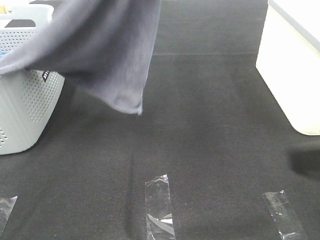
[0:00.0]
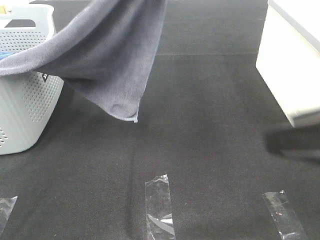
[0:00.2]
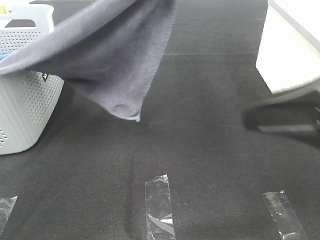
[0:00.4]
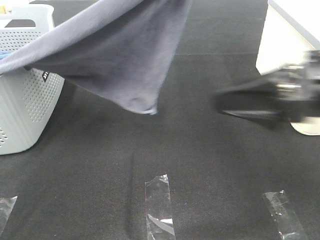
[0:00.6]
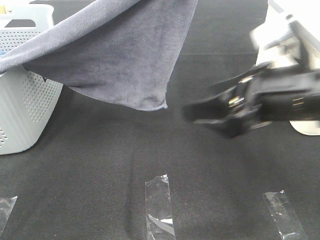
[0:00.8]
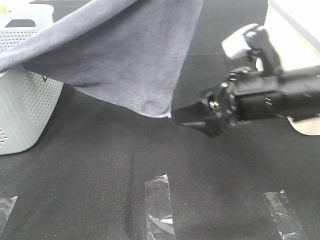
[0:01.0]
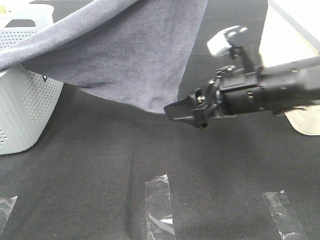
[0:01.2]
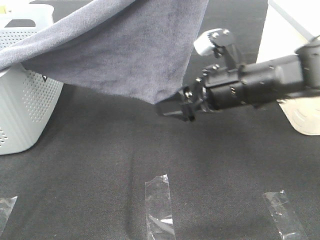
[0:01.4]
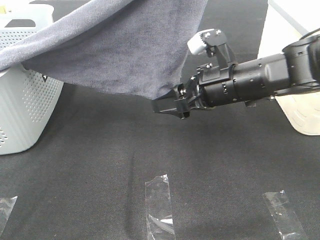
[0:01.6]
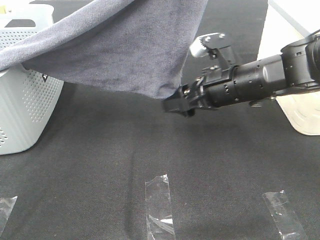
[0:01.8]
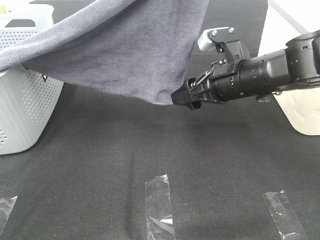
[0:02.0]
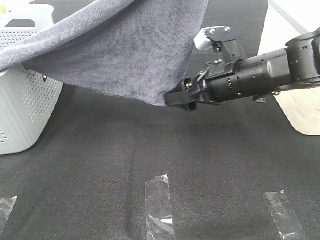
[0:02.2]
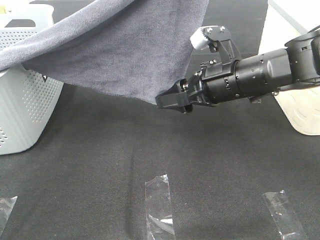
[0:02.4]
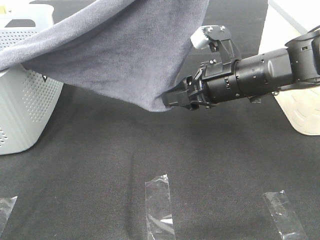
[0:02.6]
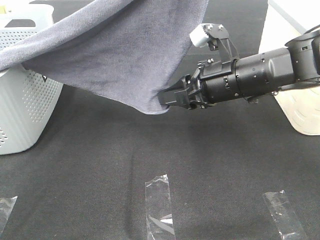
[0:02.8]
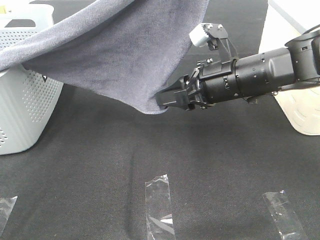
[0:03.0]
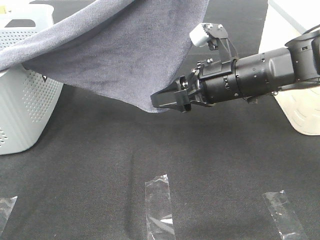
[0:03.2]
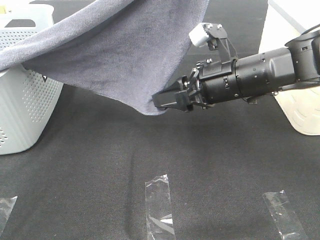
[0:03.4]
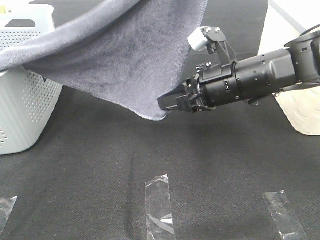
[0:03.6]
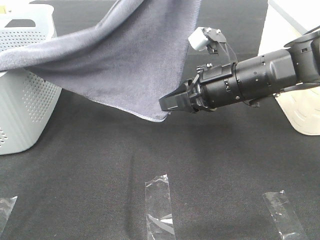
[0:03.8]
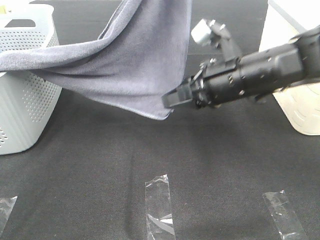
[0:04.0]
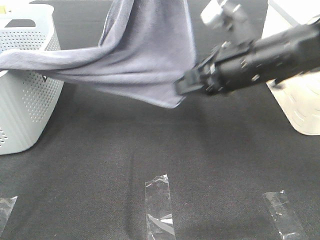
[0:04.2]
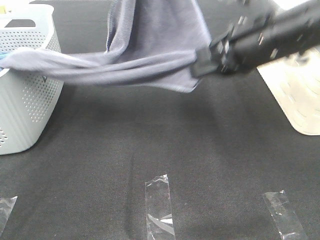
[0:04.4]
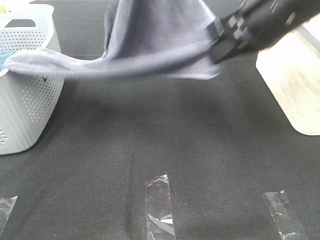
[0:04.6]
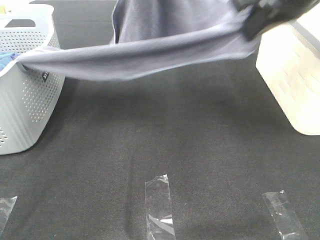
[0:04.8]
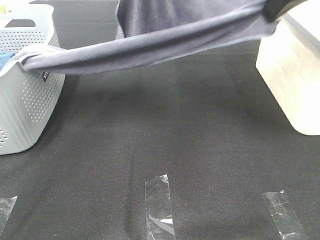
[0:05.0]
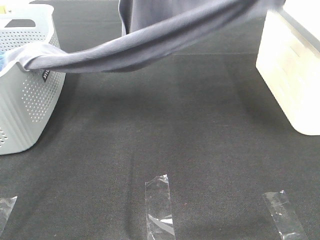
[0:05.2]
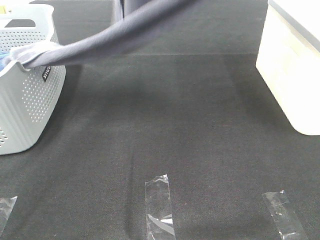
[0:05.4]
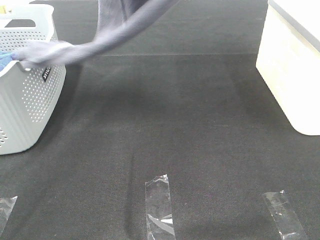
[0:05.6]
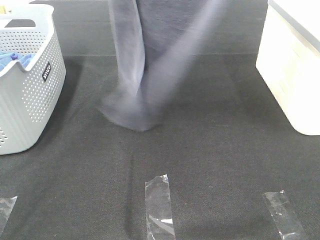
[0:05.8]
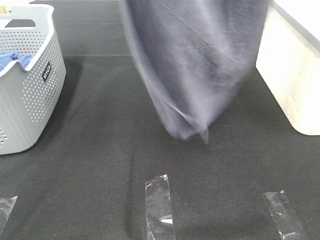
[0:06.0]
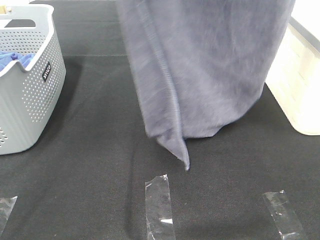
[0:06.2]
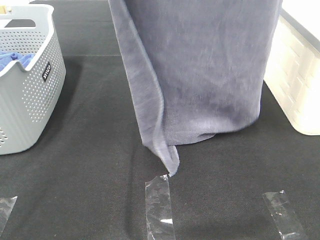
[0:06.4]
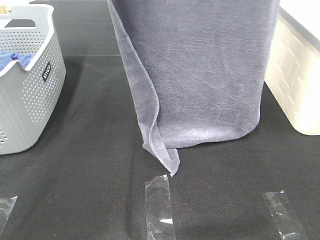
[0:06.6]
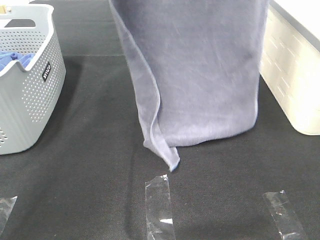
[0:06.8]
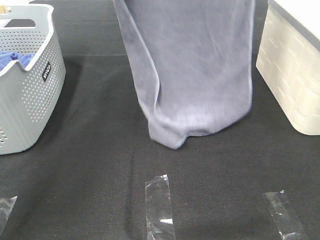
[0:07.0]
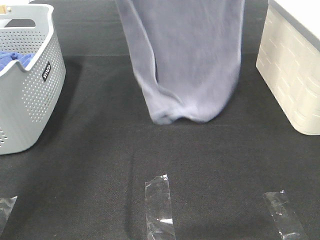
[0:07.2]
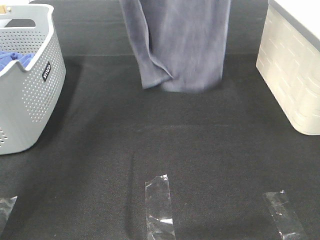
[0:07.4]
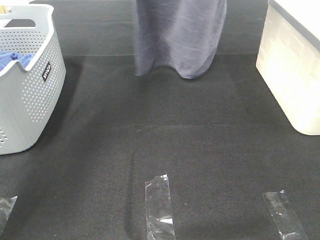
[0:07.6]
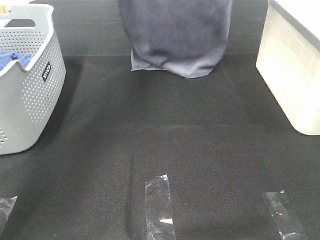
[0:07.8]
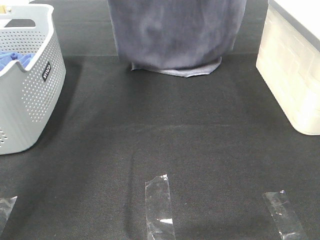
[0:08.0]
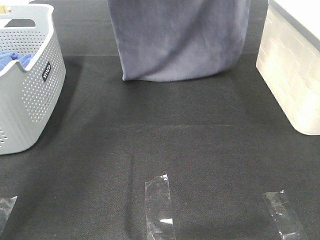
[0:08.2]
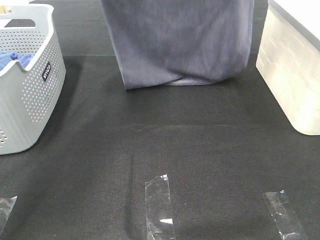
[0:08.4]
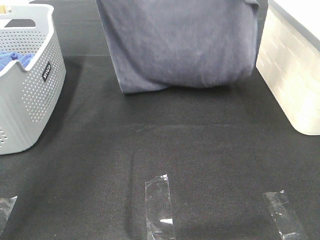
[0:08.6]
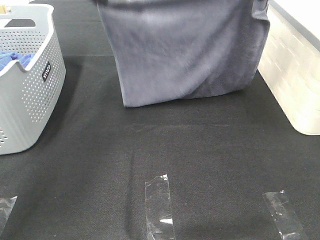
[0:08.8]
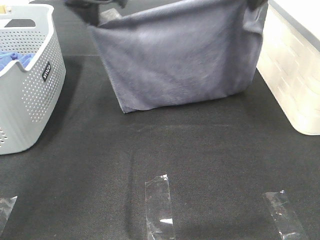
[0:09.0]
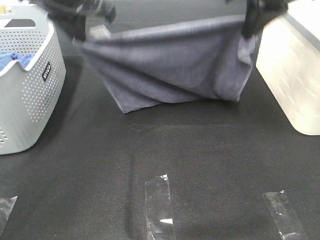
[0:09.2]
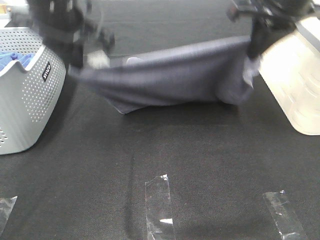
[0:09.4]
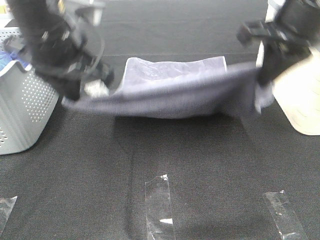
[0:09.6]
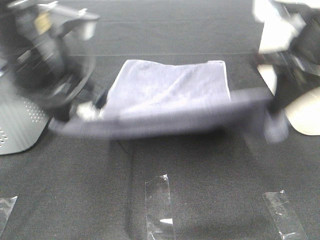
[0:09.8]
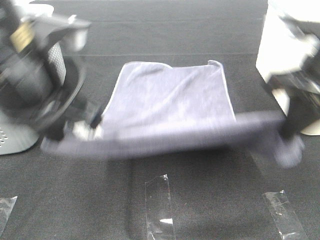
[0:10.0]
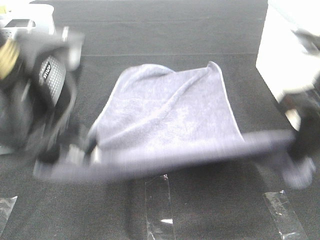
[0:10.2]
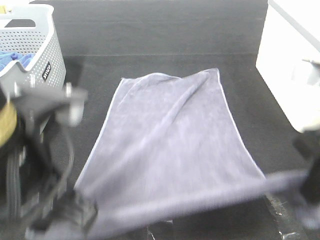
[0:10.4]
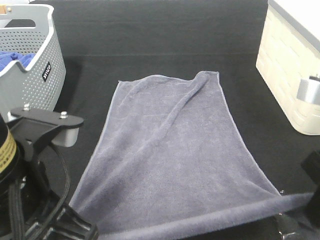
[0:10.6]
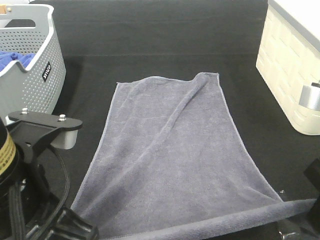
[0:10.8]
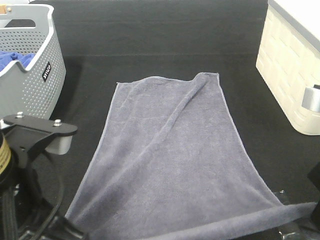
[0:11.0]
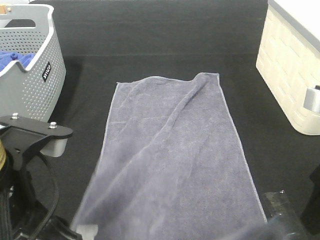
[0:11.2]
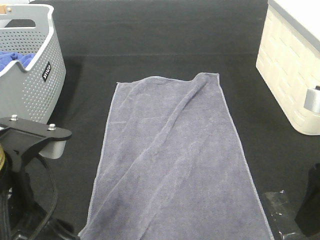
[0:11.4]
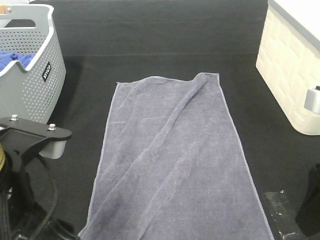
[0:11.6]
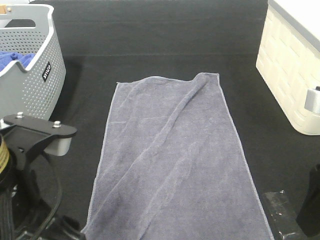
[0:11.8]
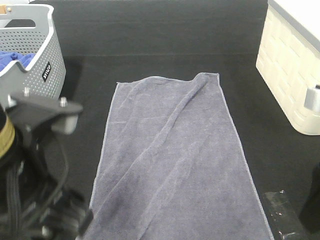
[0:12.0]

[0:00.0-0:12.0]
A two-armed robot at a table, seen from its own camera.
Task of the whole recording: Remove the towel and place it.
Step, 0.0 to 2.6 s: Right hand: grab a corner of the grey towel and straighten it.
Step, 2.8 to 7.0 s: Left hand: spread the grey towel flat on the table.
Step, 2.8 to 7.0 s: Right hand: spread the grey towel flat on the table.
0.0 to 1.6 s: The right gripper travels forward, downward and to the left by about 25 cm; the left gripper moves some 5 cm.
1.6 to 3.0 s: There are only small adjustments of the grippers.
3.0 to 4.4 s: The right gripper heads upward, covering roughly 10 cm, and closes its fingers.
4.4 to 6.0 s: The left gripper moves upward, some 10 cm; the right gripper travels upward by approximately 25 cm.
6.0 to 7.6 s: The left gripper goes roughly 20 cm forward and downward. Meanwhile the right gripper travels forward by approximately 15 cm.
7.6 to 9.0 s: The grippers both shift downward by some 15 cm.
9.0 to 10.4 s: The left gripper is displaced backward by some 30 cm. The right gripper heads backward and downward, covering approximately 25 cm.
10.4 to 12.0 s: The left gripper opens. The right gripper opens up.

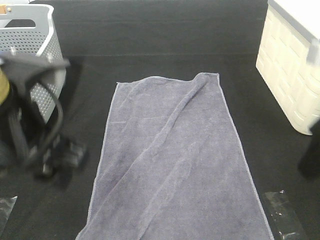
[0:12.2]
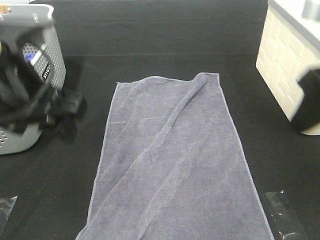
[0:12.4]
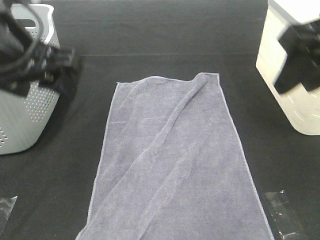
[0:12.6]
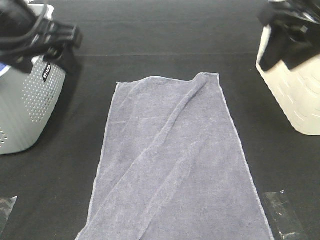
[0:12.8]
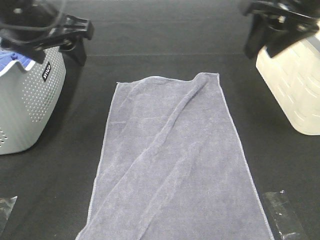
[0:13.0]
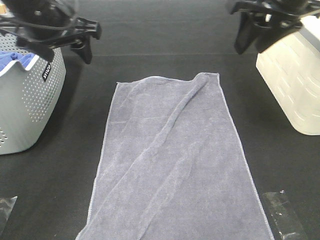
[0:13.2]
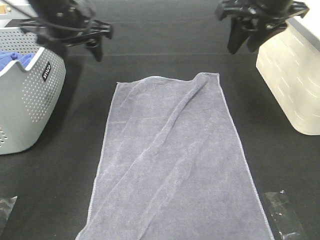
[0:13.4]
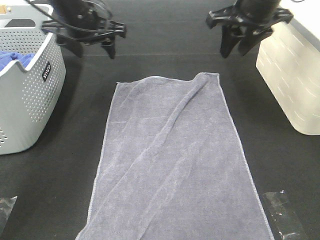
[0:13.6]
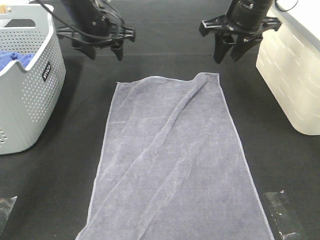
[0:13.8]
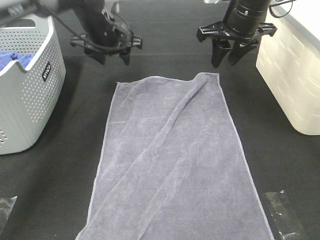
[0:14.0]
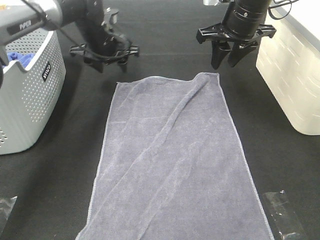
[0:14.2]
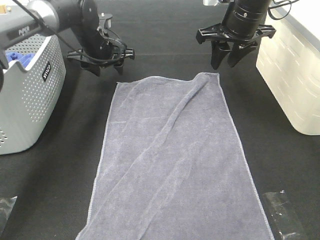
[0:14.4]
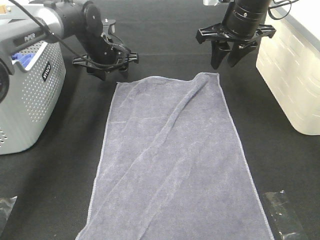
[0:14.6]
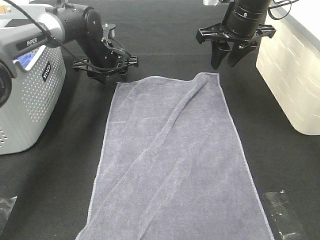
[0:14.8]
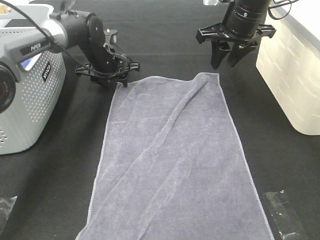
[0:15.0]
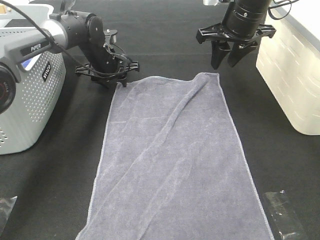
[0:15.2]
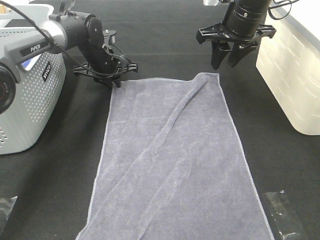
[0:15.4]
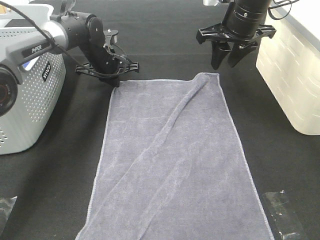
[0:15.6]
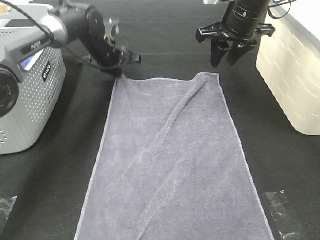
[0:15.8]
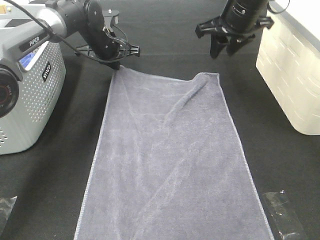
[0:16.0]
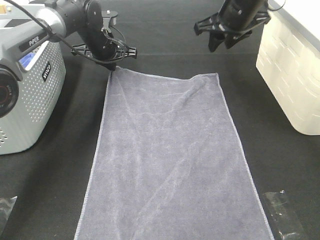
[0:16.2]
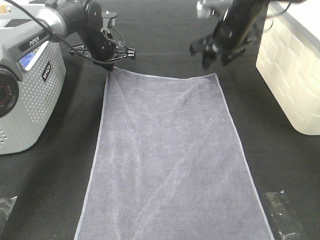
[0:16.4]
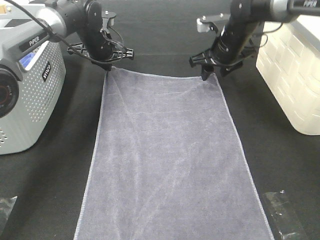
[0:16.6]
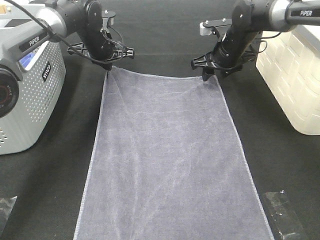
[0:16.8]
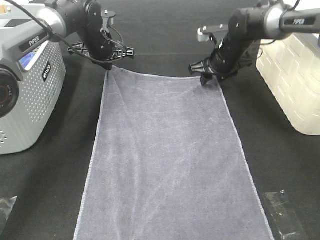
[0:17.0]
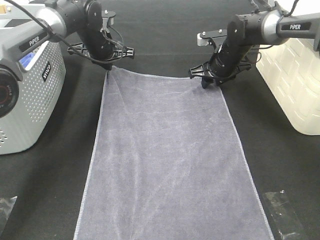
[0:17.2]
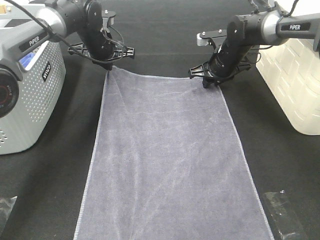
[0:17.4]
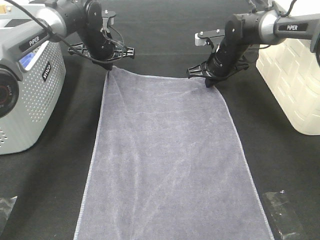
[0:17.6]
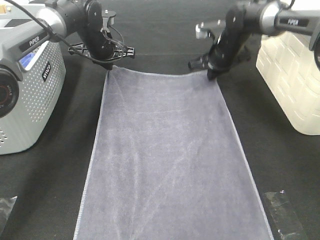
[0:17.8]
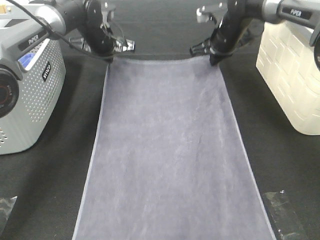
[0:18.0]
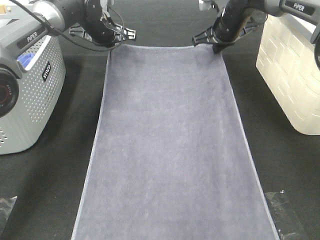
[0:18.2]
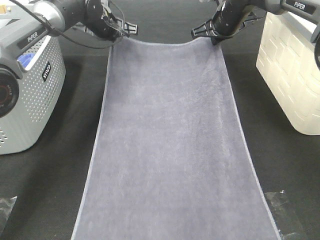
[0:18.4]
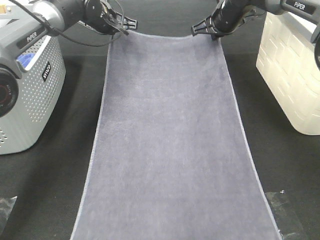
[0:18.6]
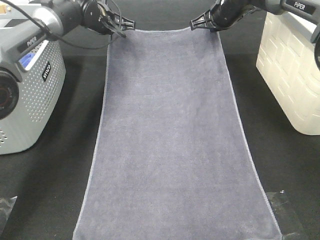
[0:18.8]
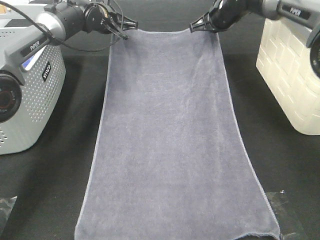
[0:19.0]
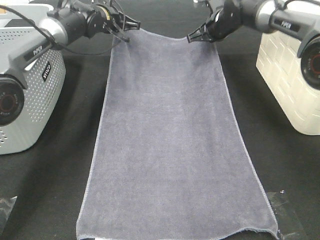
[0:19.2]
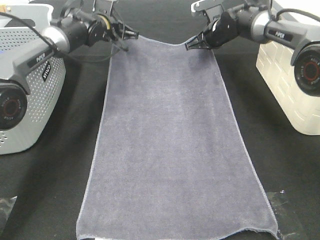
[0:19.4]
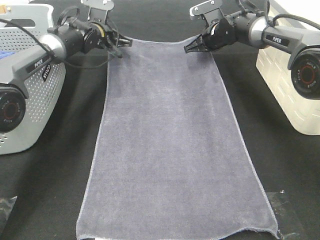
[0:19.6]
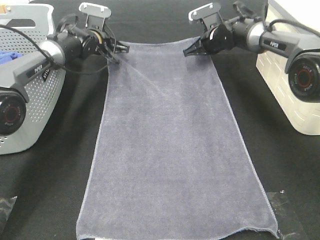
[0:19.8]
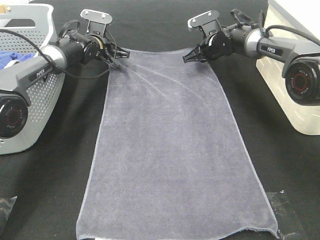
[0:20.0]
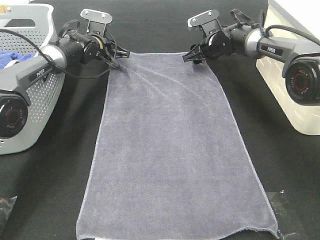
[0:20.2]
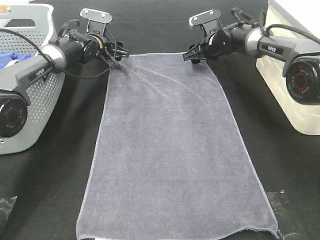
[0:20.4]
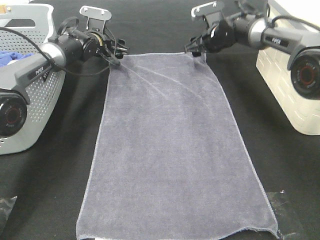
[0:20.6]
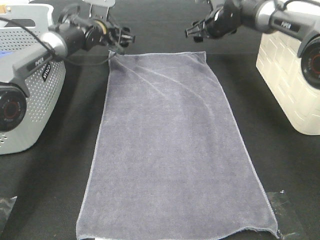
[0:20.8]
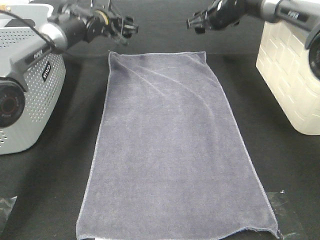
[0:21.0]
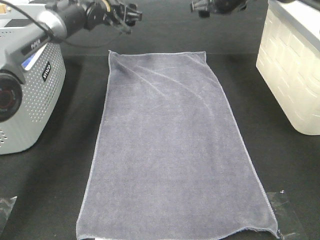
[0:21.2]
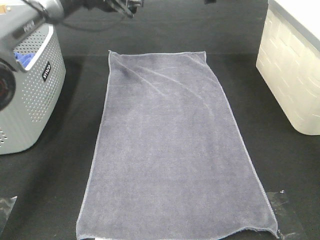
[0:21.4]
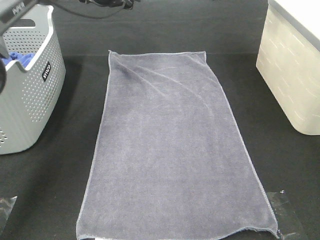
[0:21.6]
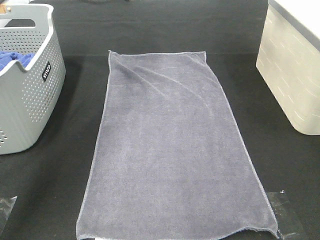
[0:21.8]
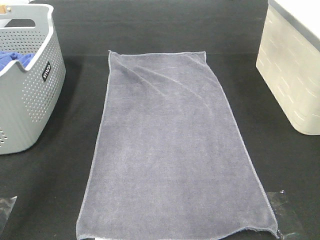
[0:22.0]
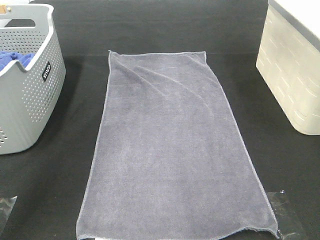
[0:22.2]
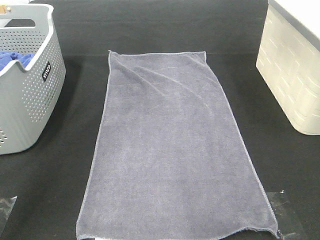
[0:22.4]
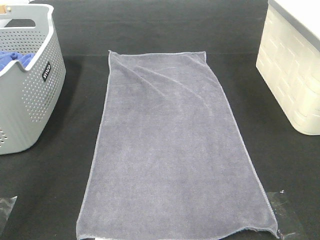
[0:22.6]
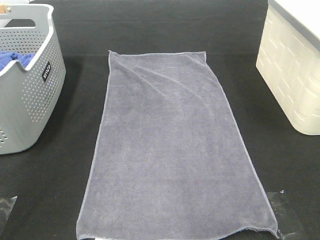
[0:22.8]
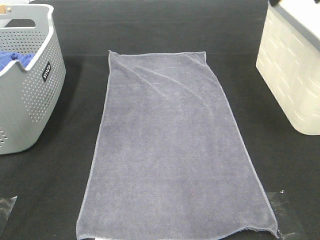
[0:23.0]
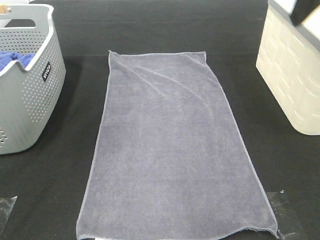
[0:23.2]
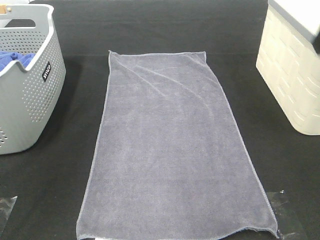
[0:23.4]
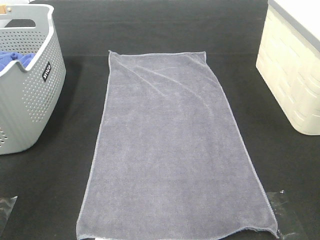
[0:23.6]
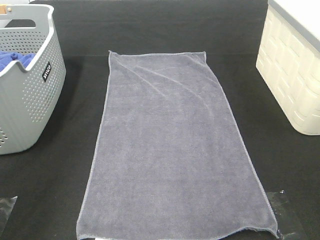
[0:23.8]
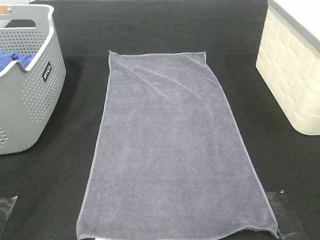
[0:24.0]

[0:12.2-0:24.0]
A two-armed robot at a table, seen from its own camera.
Task of the whole recording: Remove the towel and place it.
Step, 12.2 to 14.2 s: Left hand:adjust the gray towel.
Step, 12.2 to 14.2 s: Right hand:adjust the gray towel.
12.2 to 13.6 s: Both grippers travel together forward, roughly 25 cm.
13.6 to 15.2 s: The left gripper shifts approximately 15 cm downward and forward.
15.2 to 16.6 s: The right gripper heads downward and forward, covering approximately 10 cm; the left gripper closes its fingers.
16.6 to 18.2 s: The right gripper ends up roughly 5 cm from where it was, and closes its fingers.
18.2 to 19.6 s: The two grippers go roughly 5 cm downward.
19.6 to 21.0 s: The left gripper opens its fingers. Meanwhile the right gripper travels upward by approximately 5 cm, and opens.
21.0 to 22.6 s: Both grippers move upward and backward, some 30 cm.
22.6 to 24.0 s: The right gripper is displaced backward by roughly 35 cm; the left gripper is displaced backward and to the left by some 40 cm.
